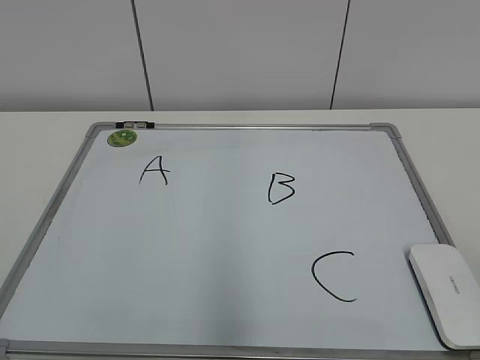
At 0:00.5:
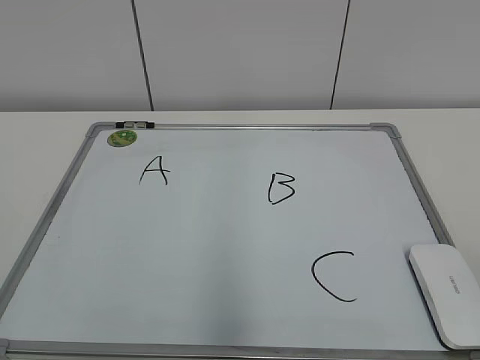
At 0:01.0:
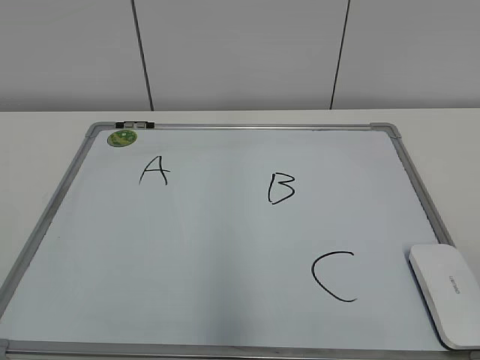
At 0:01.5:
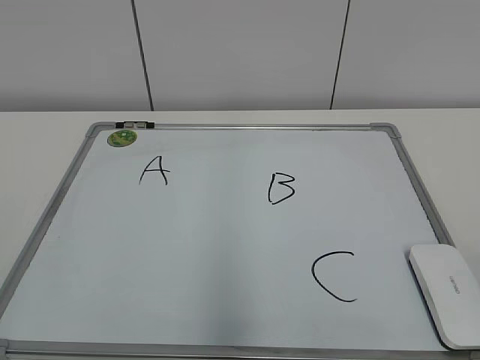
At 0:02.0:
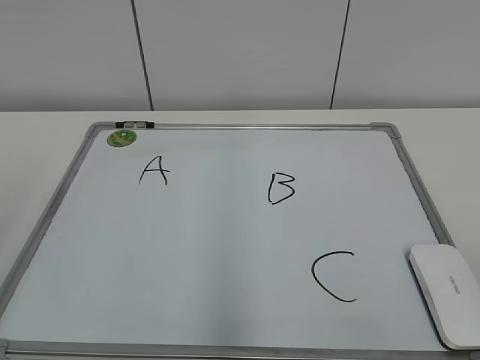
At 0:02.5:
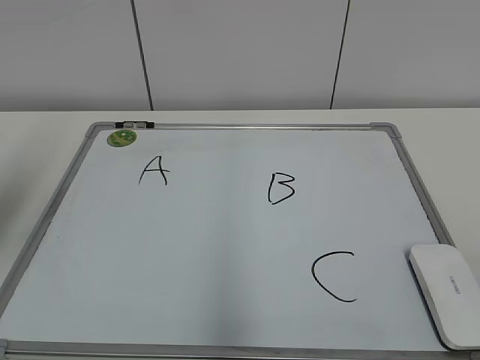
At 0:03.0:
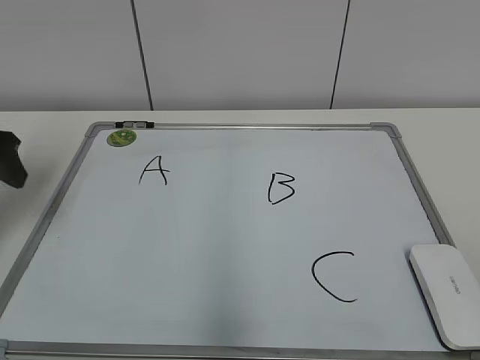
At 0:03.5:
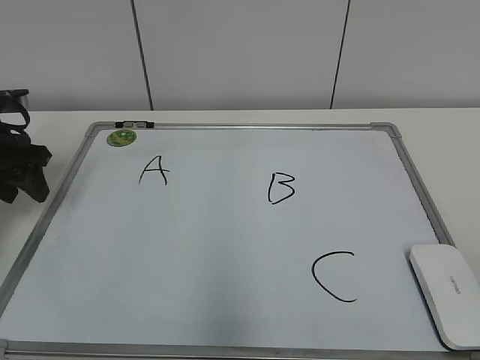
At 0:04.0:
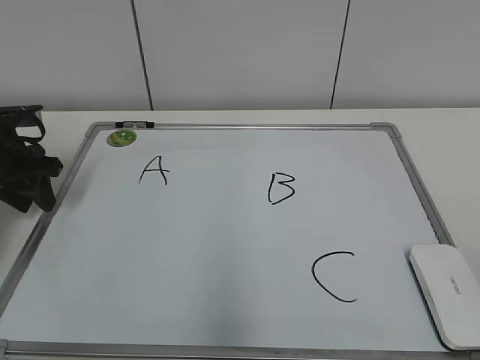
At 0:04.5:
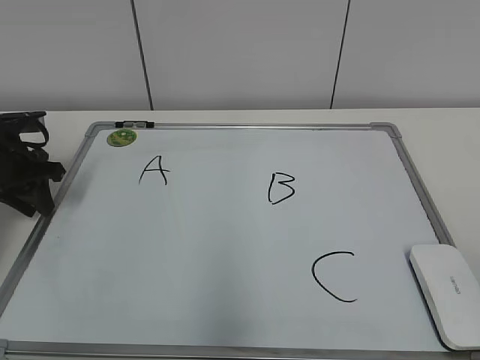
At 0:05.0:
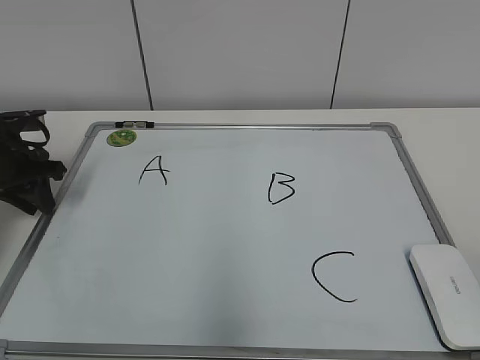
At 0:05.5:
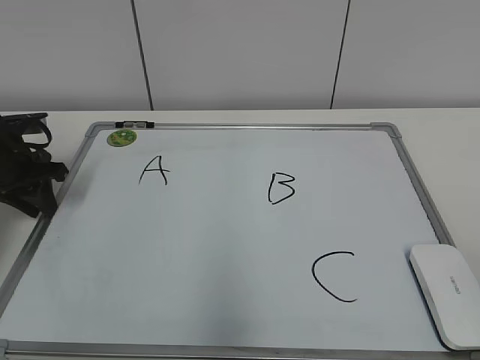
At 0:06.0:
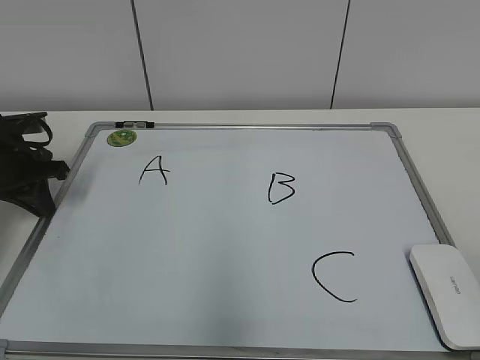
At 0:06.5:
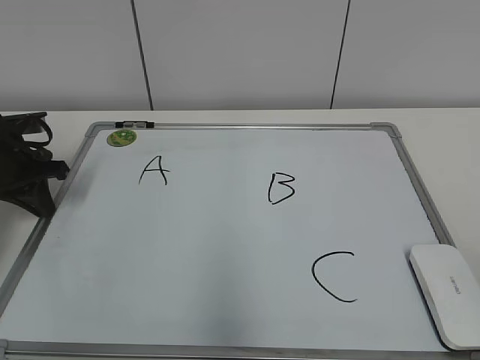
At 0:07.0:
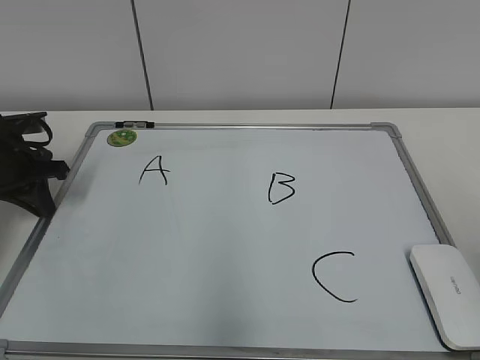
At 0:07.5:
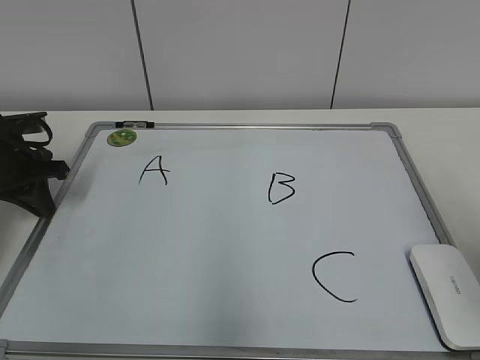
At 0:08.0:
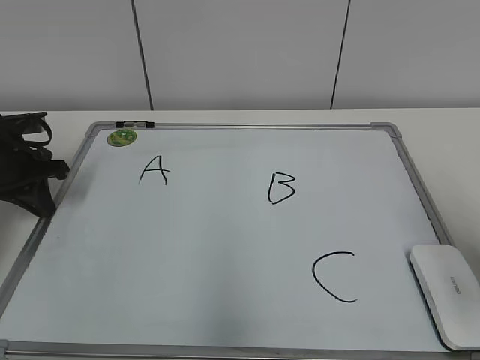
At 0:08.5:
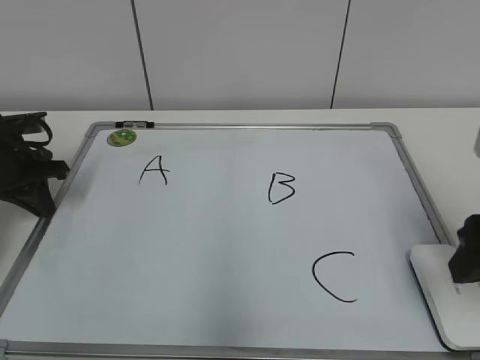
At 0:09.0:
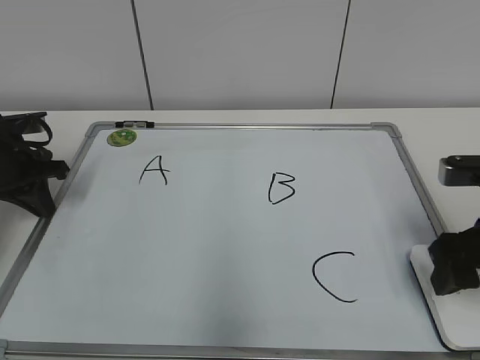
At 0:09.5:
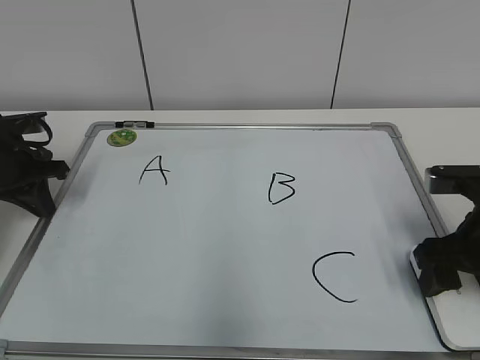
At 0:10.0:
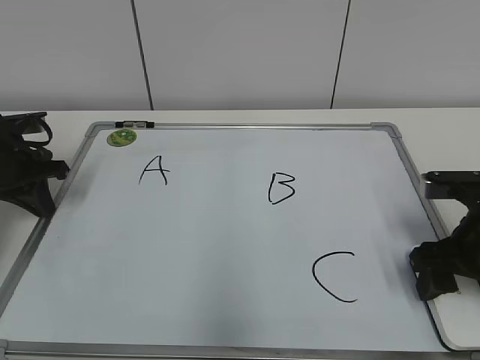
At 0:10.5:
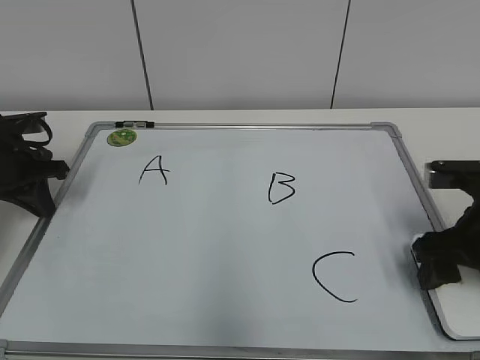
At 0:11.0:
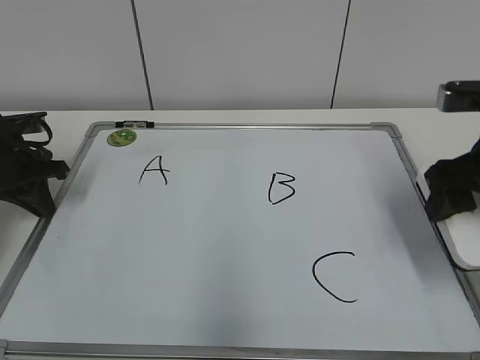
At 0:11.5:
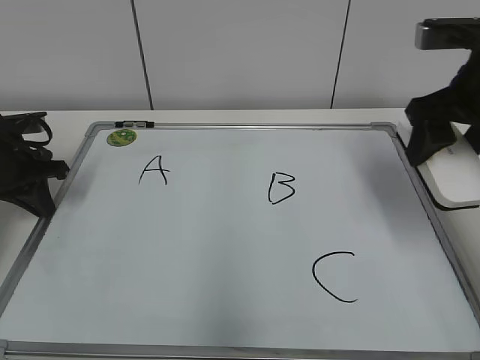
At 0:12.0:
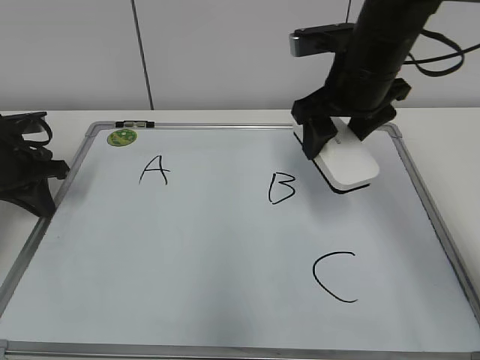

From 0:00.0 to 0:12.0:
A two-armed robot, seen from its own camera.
Task of the whole recording: pick up the eraser on the blackboard and erase the letter "B".
Step, from 0:00.0 to 0:05.5: Hold the drawing board steady with your left hand.
Step, from 0:06.0 to 0:10.0: Grab the eraser with your right hand.
From 0:02.0 to 0:04.0: The left gripper heads forward and downward, covering approximately 35 cm, and closes its fingers.
From 0:04.0 to 0:06.0: The left gripper closes.
From 0:06.0 to 0:08.0: The right gripper goes approximately 15 cm forward.
From 0:08.0 to 0:10.0: The right gripper shifts approximately 15 cm downward and forward.
From 0:10.0 to 0:12.0: The right gripper goes roughly 20 cm forward, upward and to the left.

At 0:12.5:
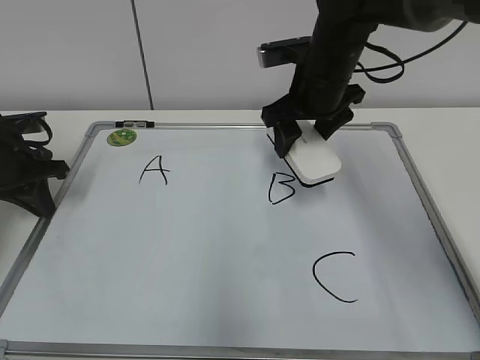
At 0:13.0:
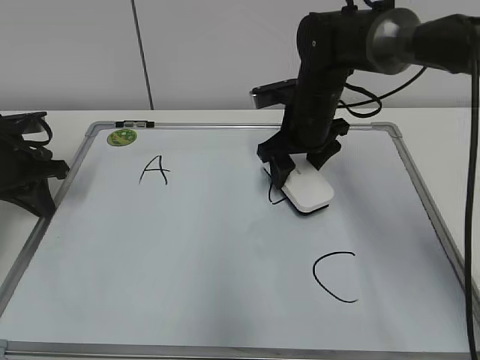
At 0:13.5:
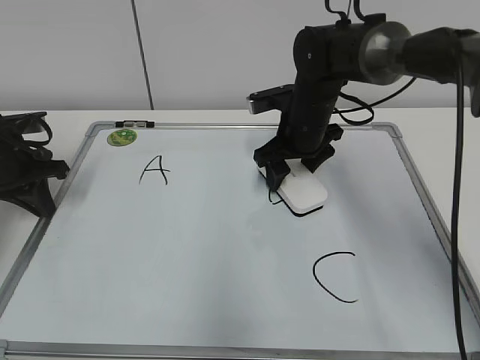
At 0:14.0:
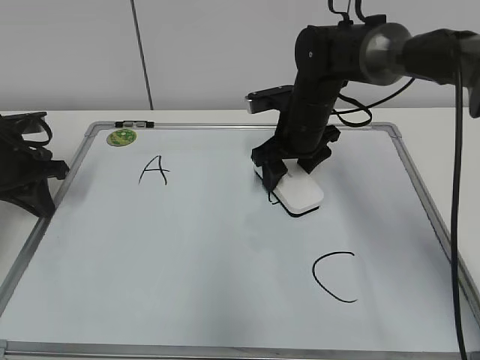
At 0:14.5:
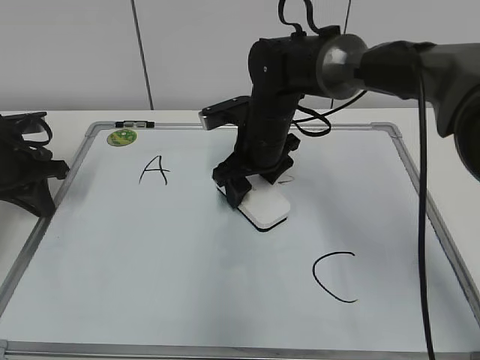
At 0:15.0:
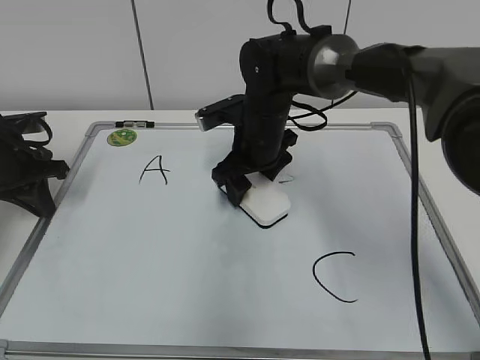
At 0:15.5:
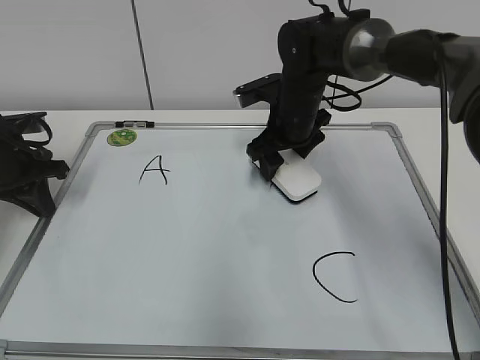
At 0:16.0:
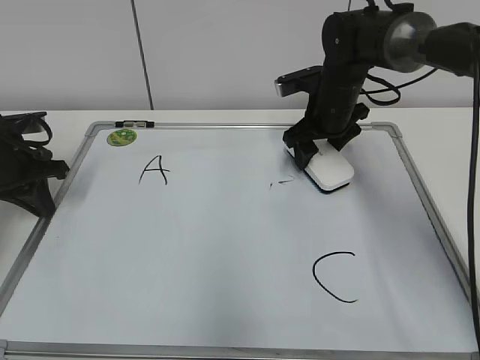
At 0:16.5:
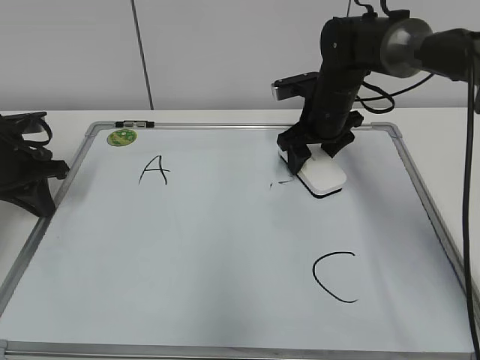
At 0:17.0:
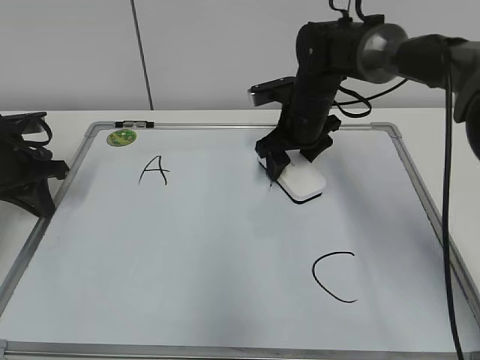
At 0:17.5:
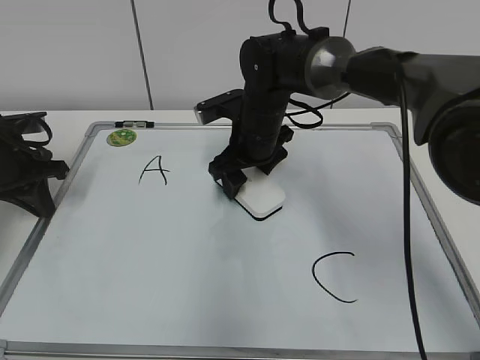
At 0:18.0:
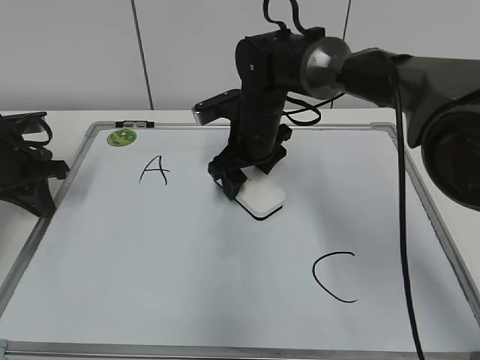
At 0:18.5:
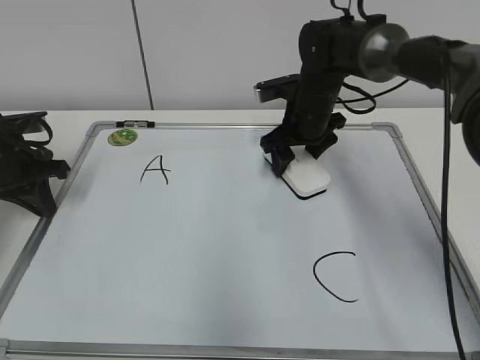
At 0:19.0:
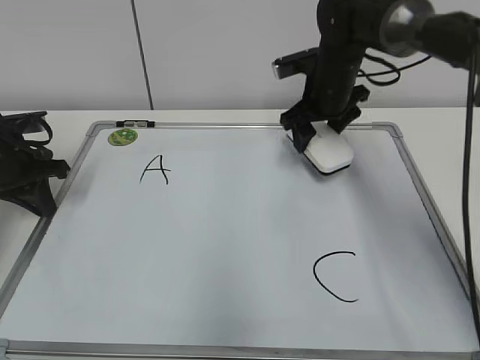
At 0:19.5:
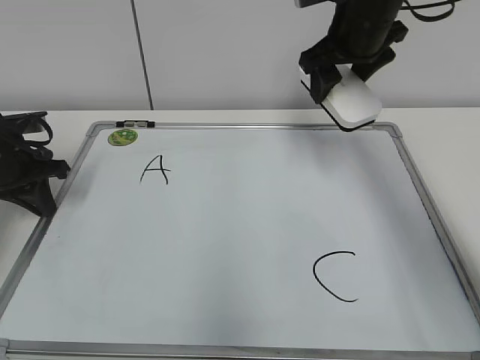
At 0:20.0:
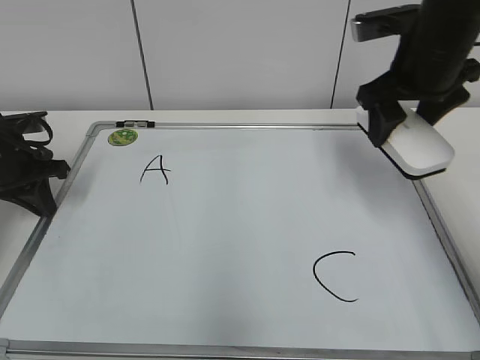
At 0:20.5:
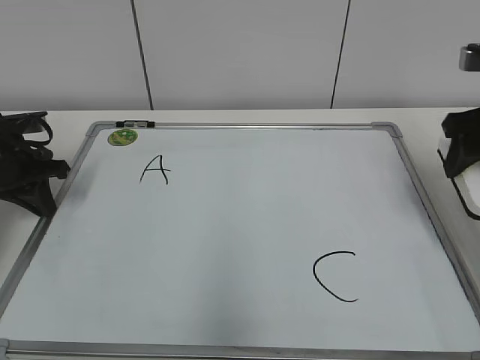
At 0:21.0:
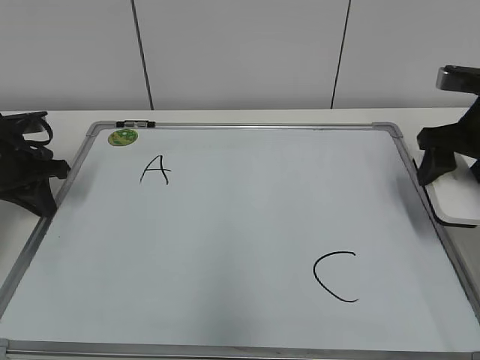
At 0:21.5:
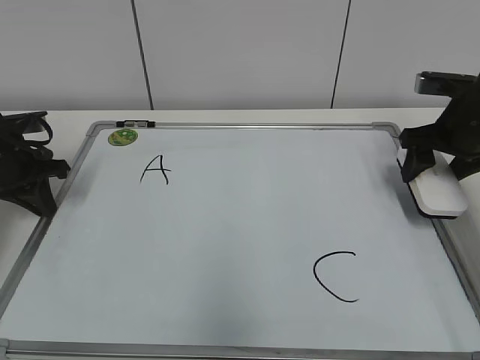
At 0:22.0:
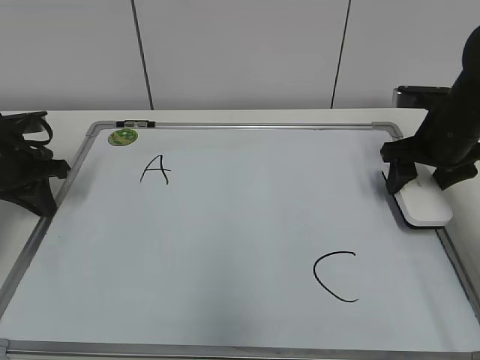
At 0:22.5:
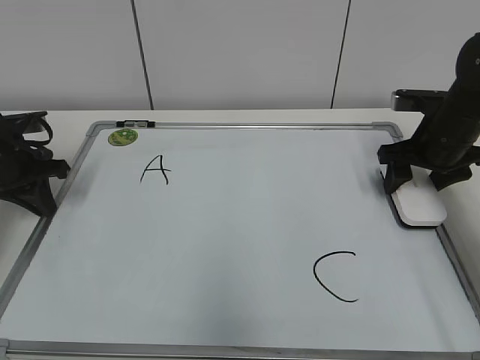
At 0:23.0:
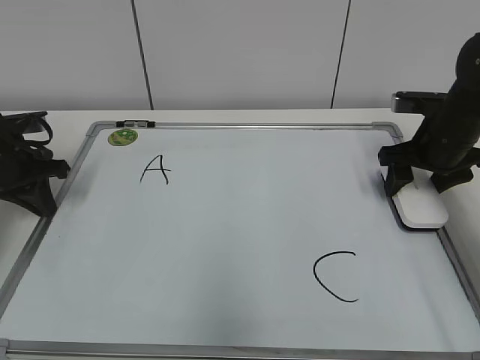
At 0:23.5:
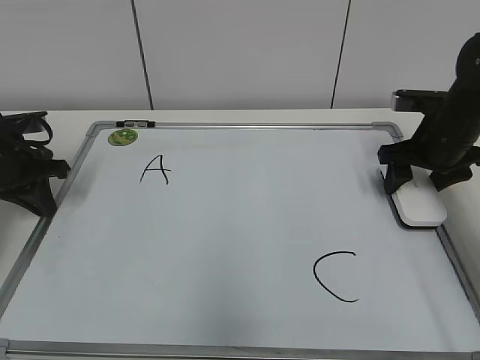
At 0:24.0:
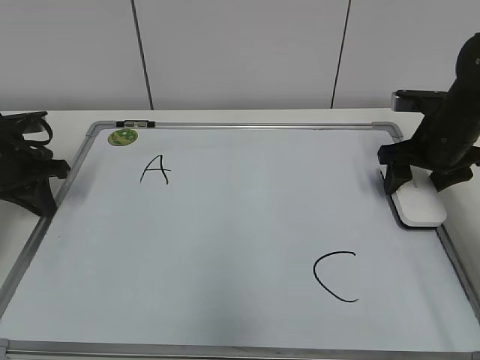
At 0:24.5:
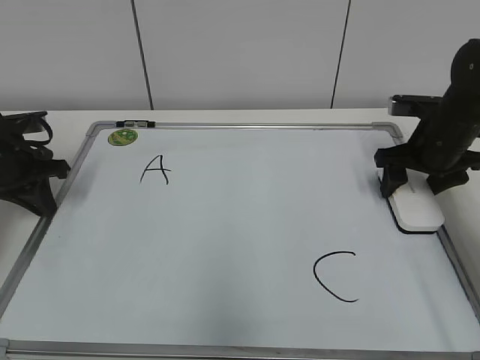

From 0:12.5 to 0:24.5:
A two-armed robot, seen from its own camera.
Task of the whole recording: pick up the eraser on the blackboard and erase the letter "B".
Step, from 0:12.5 to 0:18.5: Erase the letter B with your right hand.
Step, from 0:19.0 to 0:24.5: Put down the eraser with your right hand.
From 0:12.5 to 0:14.5: The right gripper is displaced downward and to the left by roughly 10 cm.
From 0:14.5 to 0:16.5: The right gripper shifts approximately 10 cm to the right and forward.
From 0:16.5 to 0:18.5: The right gripper reaches about 10 cm to the left, then returns.
From 0:18.5 to 0:20.5: The right gripper travels to the right, backward and upward by approximately 25 cm.
From 0:20.5 to 0:22.5: The right gripper travels downward and forward by roughly 10 cm.
From 0:22.5 to 0:24.5: Both grippers stay about where they are.

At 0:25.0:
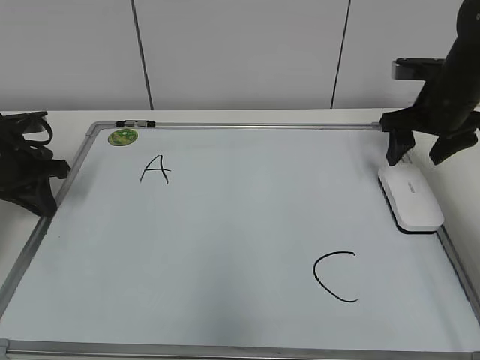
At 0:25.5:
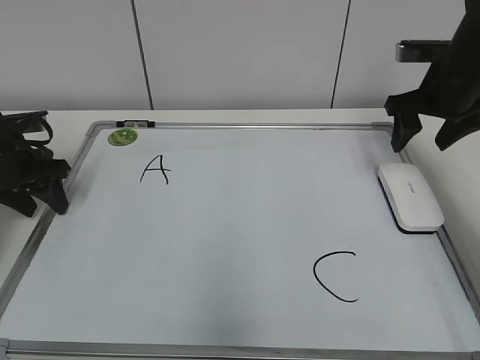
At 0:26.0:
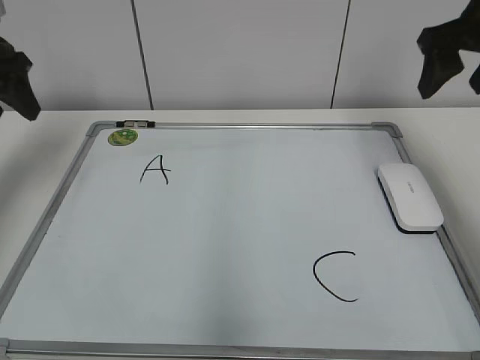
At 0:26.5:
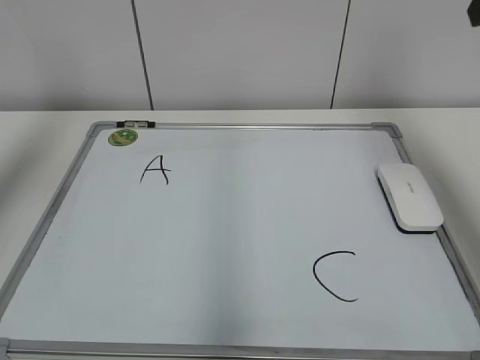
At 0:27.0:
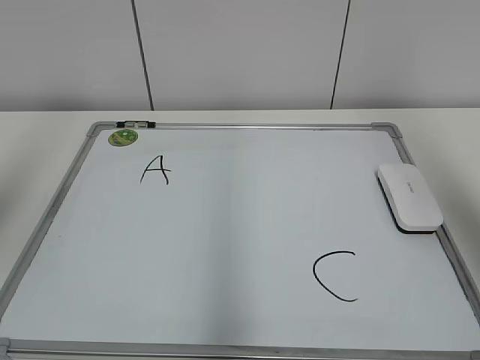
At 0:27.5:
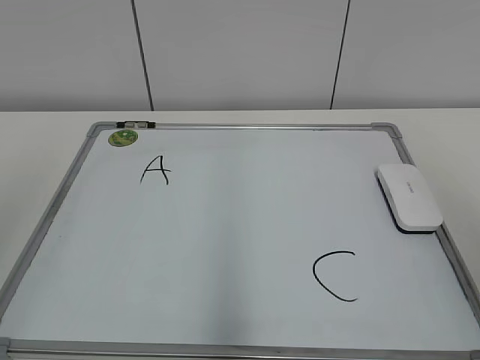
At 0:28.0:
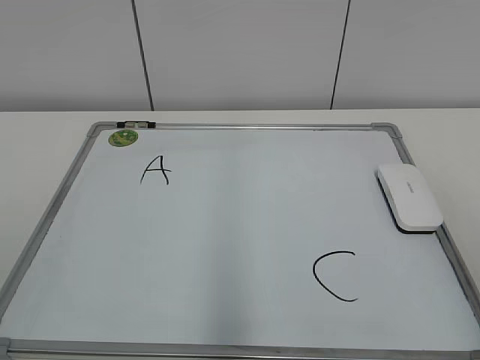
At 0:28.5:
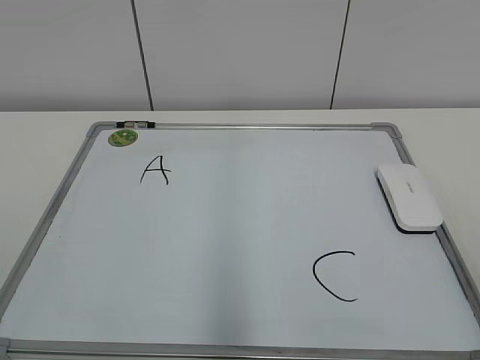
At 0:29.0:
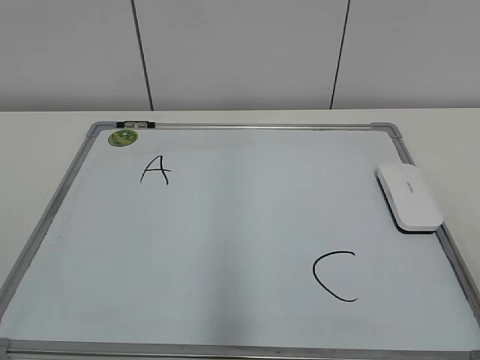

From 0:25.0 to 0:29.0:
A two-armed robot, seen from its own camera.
Task of the whole recording: pick up the eraser on the blackboard and erase the letter "B".
From 0:25.0 to 0:27.0: Both grippers move upward and backward, roughly 35 cm. The left gripper opens its fingers.
From 0:27.0 to 0:29.0: The right gripper travels downward and backward by roughly 25 cm.
